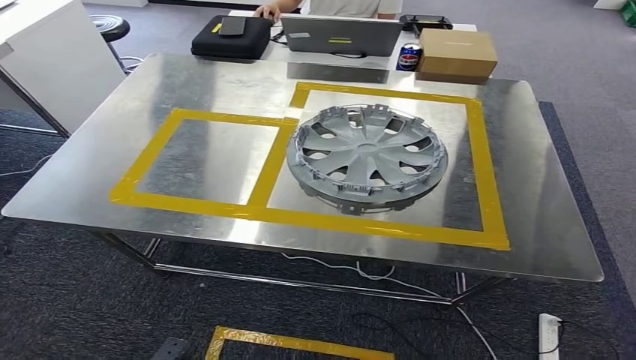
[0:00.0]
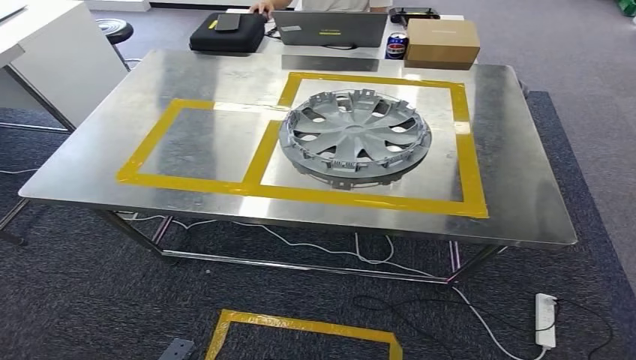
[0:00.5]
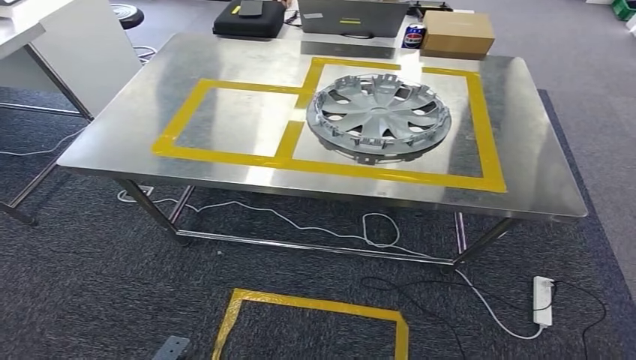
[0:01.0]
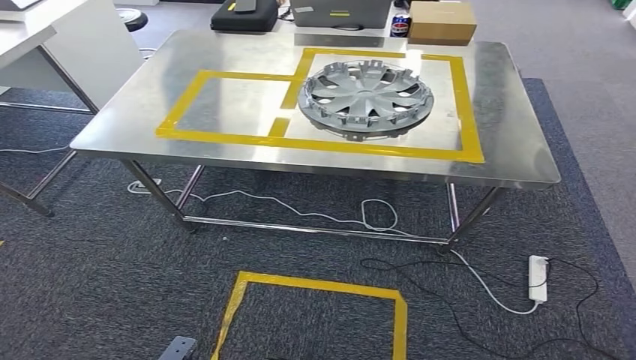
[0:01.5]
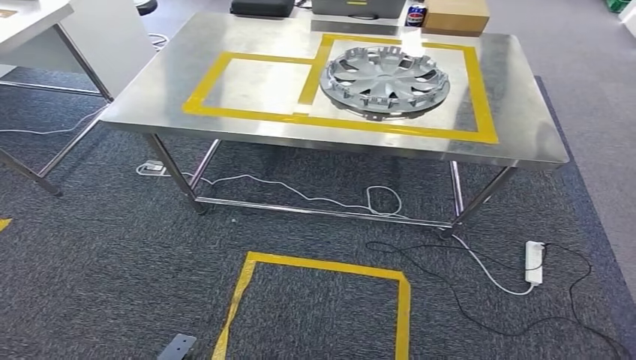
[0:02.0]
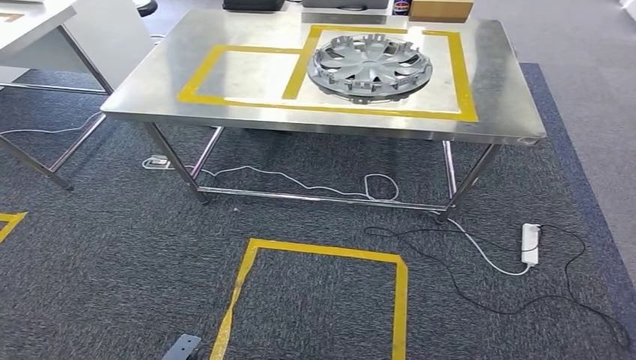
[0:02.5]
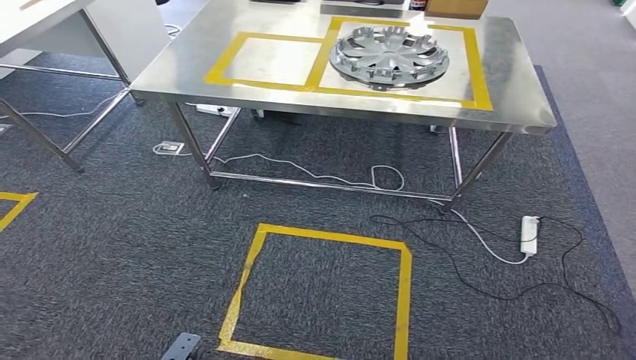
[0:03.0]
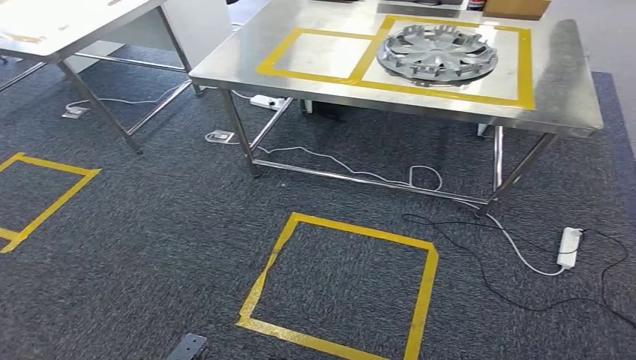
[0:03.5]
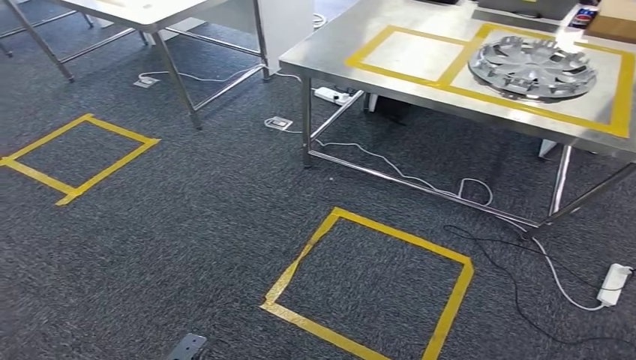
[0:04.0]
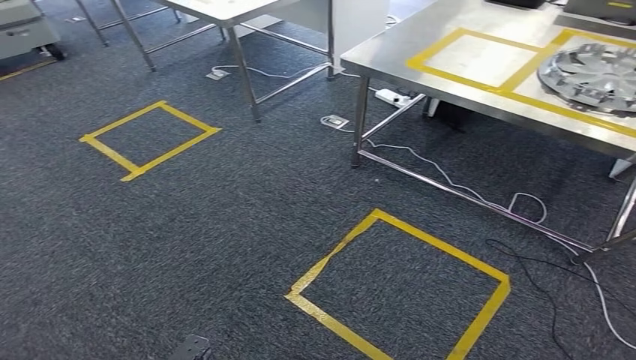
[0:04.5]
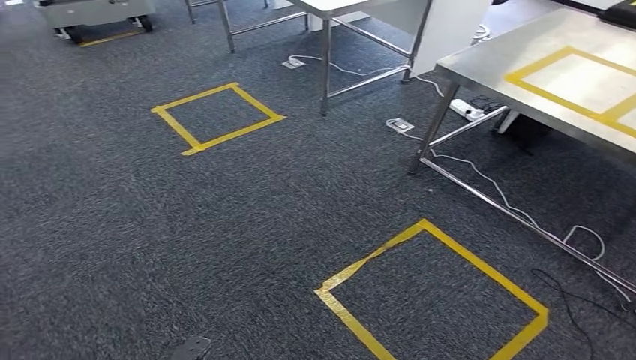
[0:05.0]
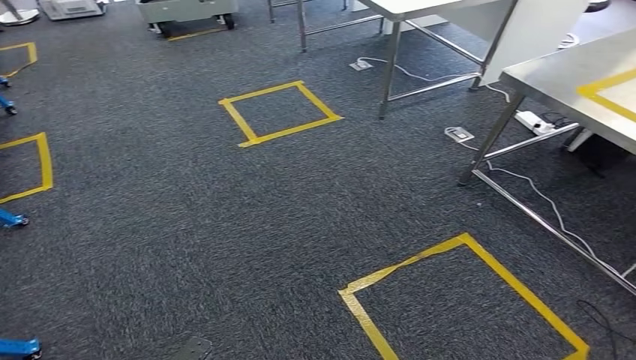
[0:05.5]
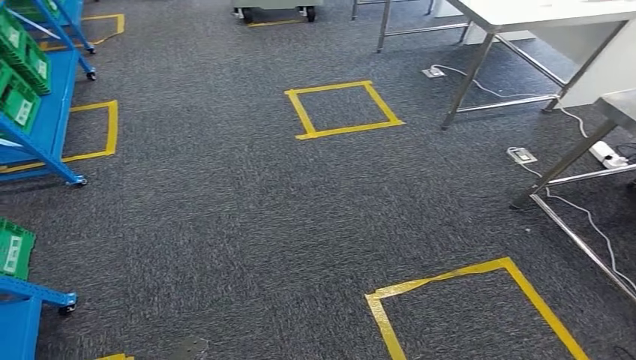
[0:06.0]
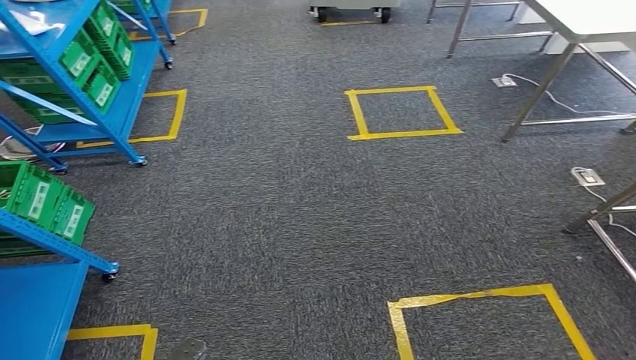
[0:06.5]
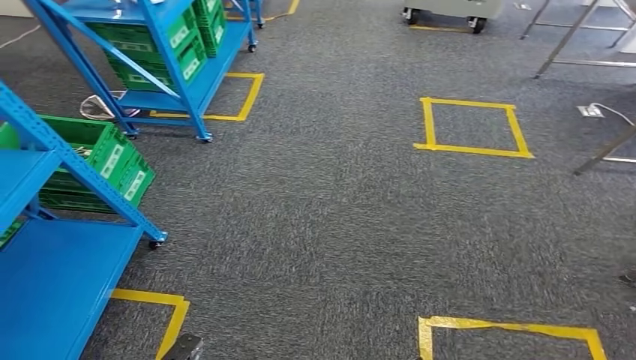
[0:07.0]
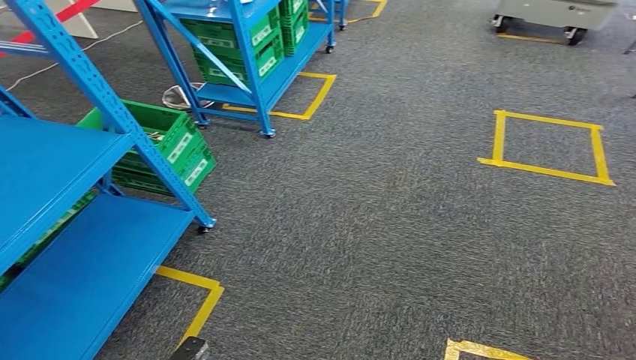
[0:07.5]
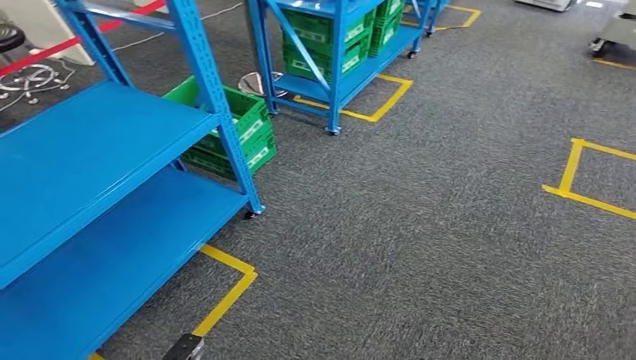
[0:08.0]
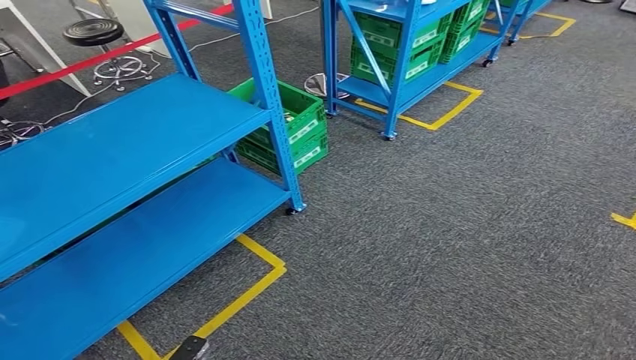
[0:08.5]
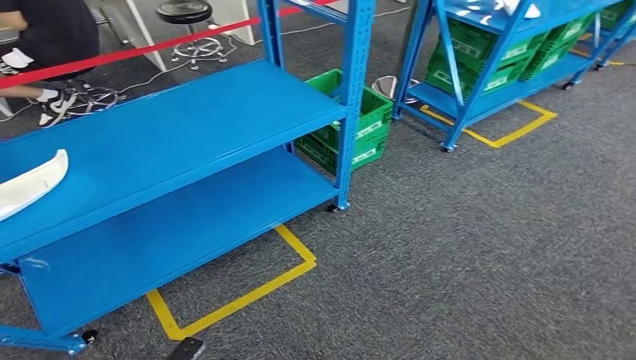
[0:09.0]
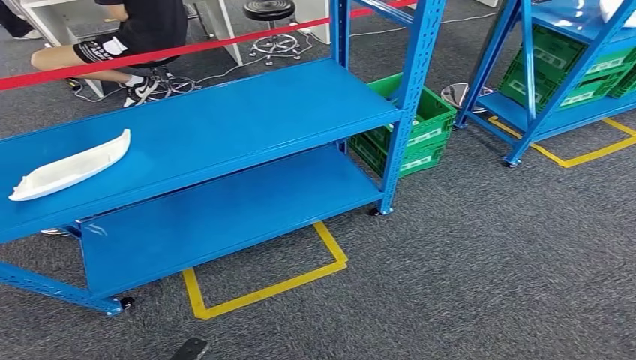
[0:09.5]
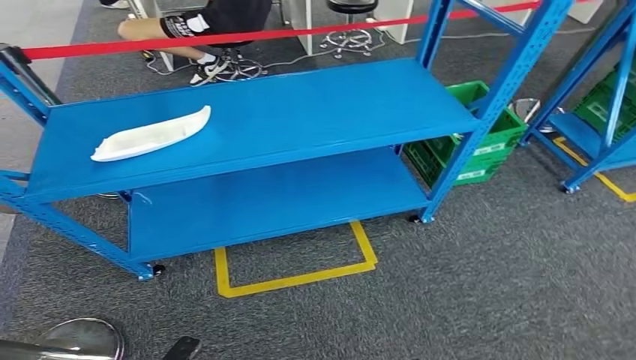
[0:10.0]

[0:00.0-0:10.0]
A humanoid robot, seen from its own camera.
Step, 0:00.0 to 0:10.0: Return to the initial position at the workbench.
